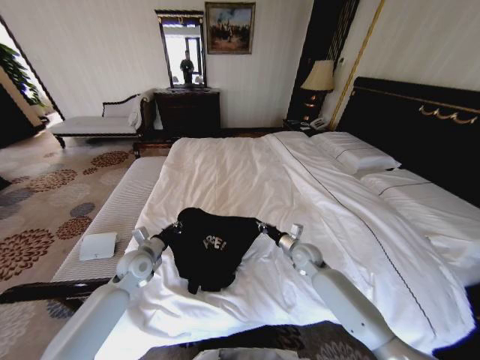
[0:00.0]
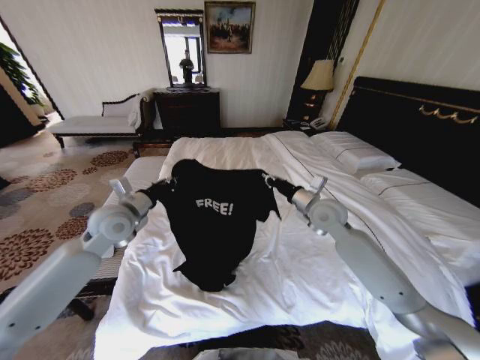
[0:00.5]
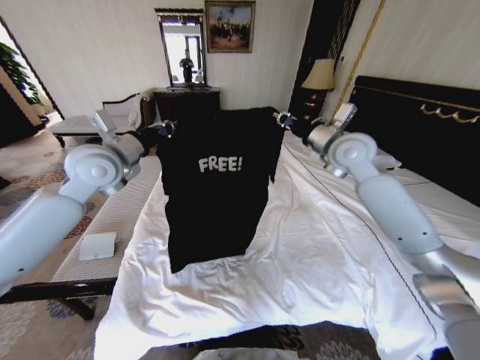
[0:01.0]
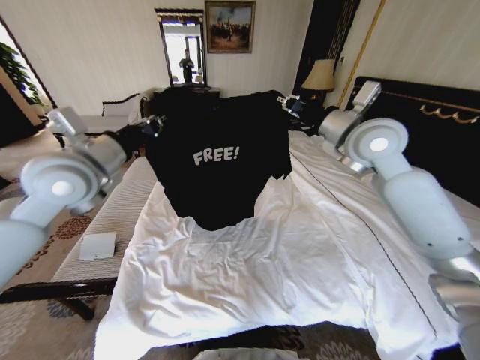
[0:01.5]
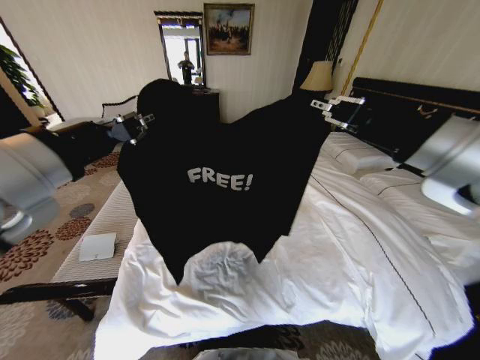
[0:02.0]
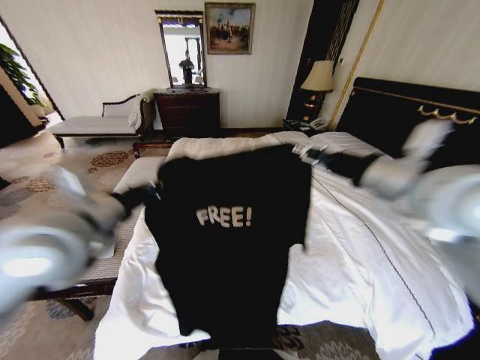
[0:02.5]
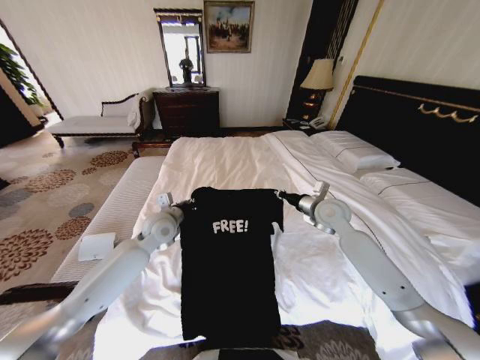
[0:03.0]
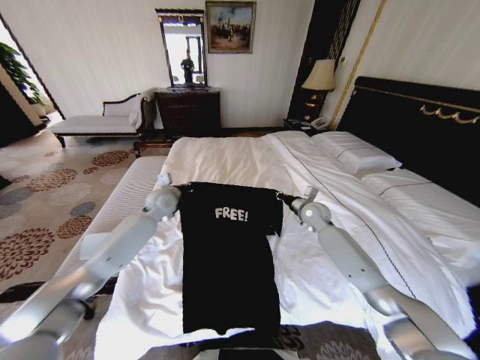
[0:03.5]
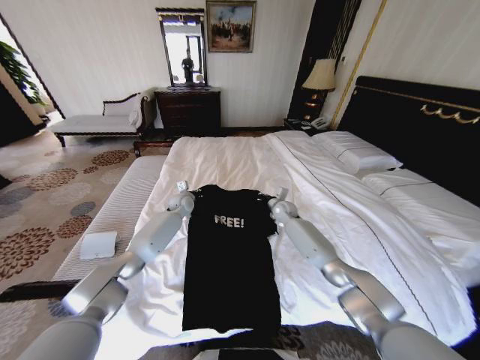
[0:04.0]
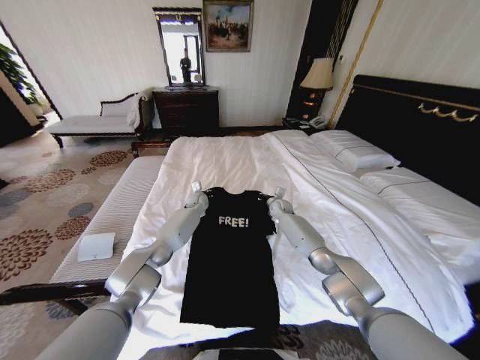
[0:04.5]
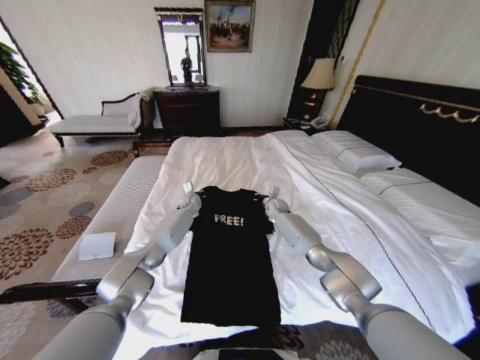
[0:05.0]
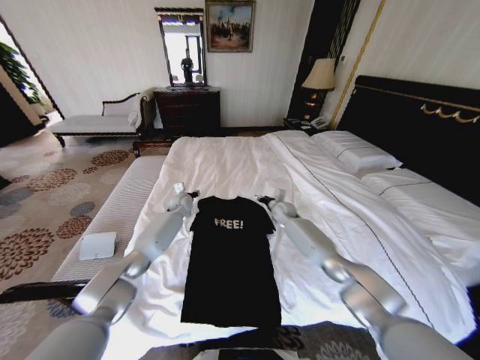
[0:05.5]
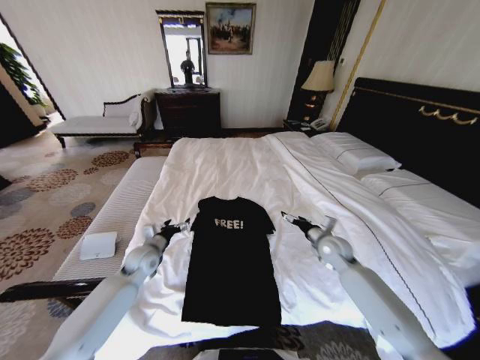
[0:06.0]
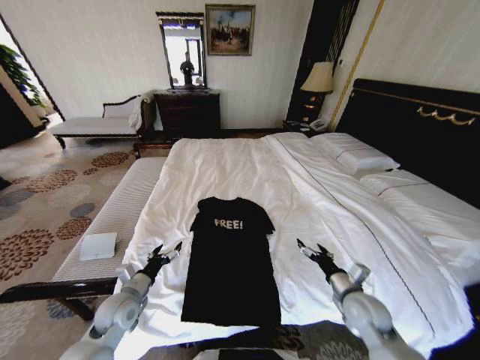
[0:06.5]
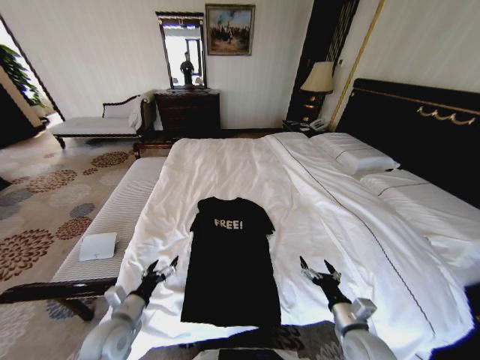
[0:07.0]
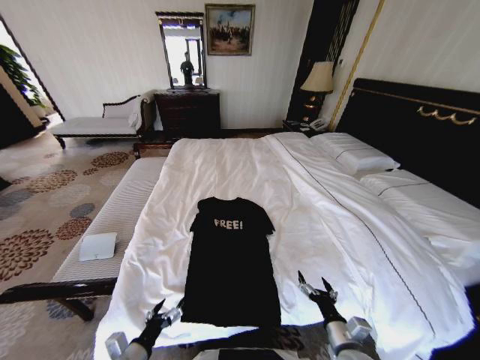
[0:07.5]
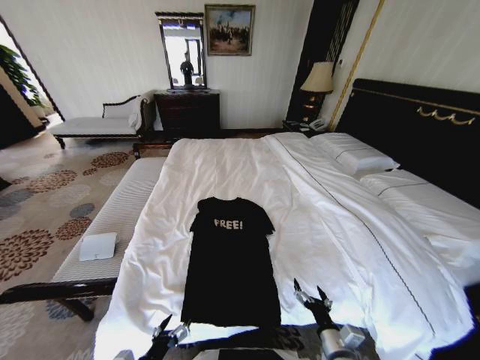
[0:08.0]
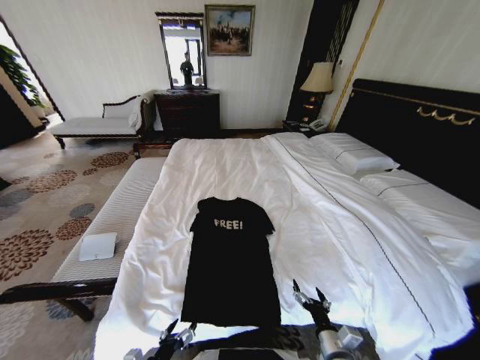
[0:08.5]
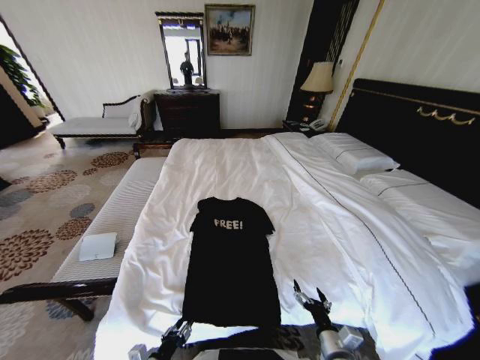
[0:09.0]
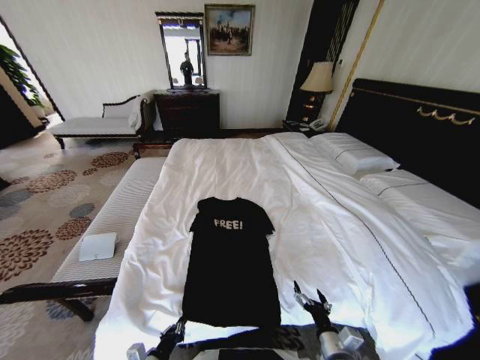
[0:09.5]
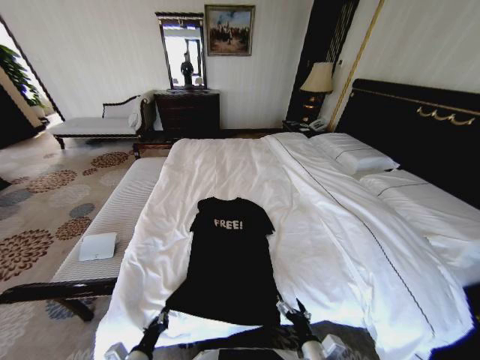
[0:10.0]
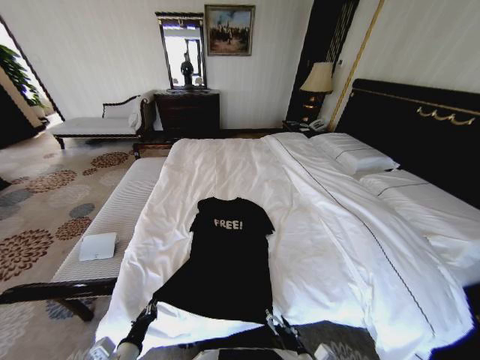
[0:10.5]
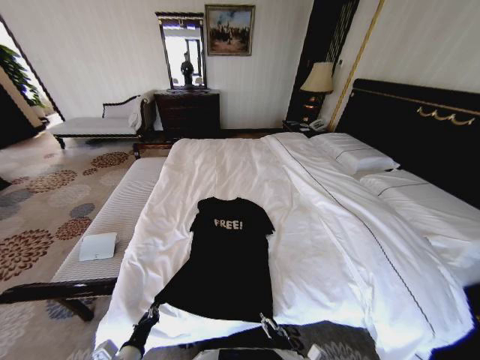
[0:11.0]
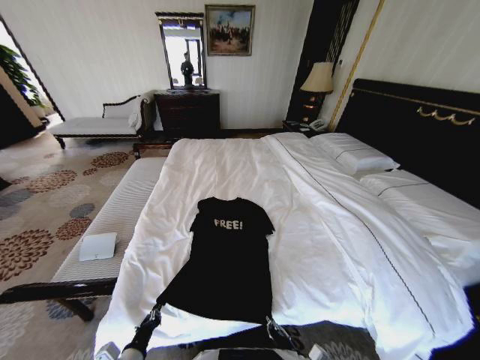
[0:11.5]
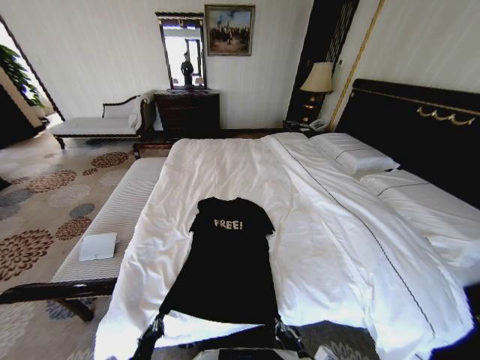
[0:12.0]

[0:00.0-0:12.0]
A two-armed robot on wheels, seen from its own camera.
Task of the whole recording: Fold the clothes on the bed.
0:00.0 to 0:02.0: The two grippers go roughly 40 cm upward.
0:02.0 to 0:04.0: The right gripper heads downward and forward, covering some 50 cm. Meanwhile the left gripper heads forward and downward, covering about 50 cm.
0:04.0 to 0:06.0: The left gripper shifts some 25 cm backward and to the left, and opens, while the right gripper goes some 20 cm backward and to the right, and opens up.
0:06.0 to 0:08.0: The two grippers go approximately 30 cm backward.
0:08.0 to 0:10.0: The right gripper changes place by approximately 5 cm, while the left gripper closes.
0:10.0 to 0:12.0: The right gripper closes its fingers.

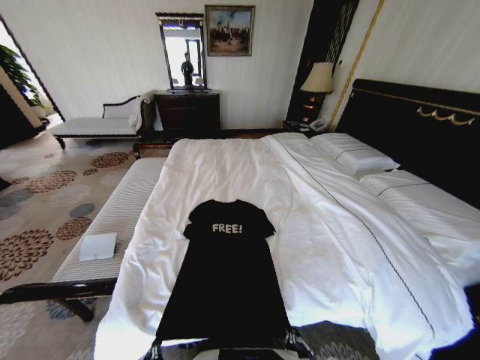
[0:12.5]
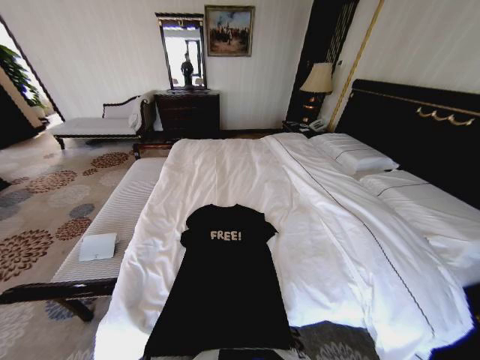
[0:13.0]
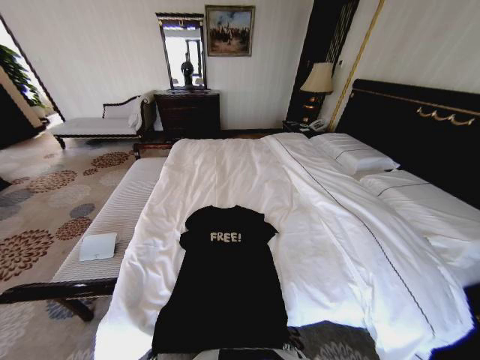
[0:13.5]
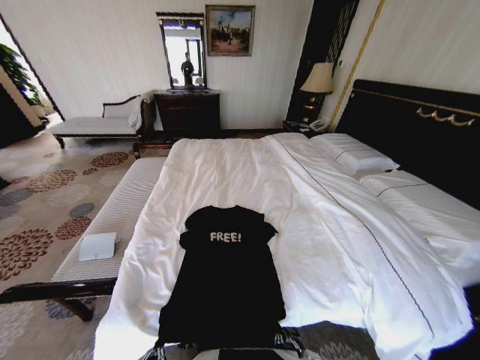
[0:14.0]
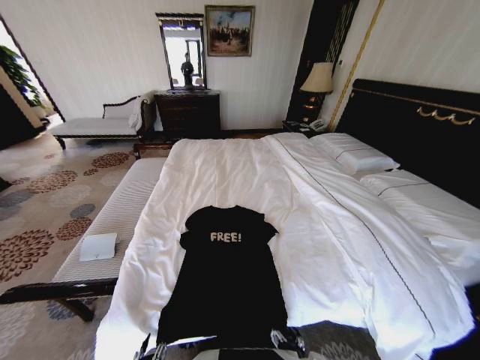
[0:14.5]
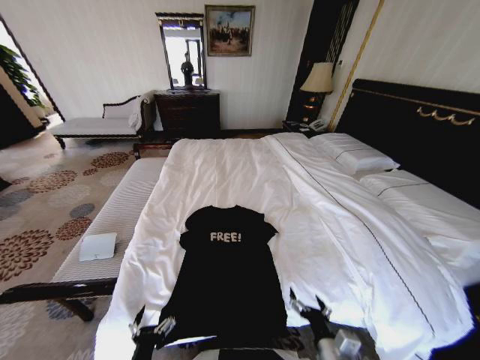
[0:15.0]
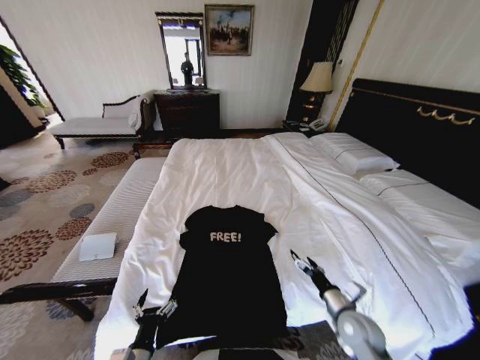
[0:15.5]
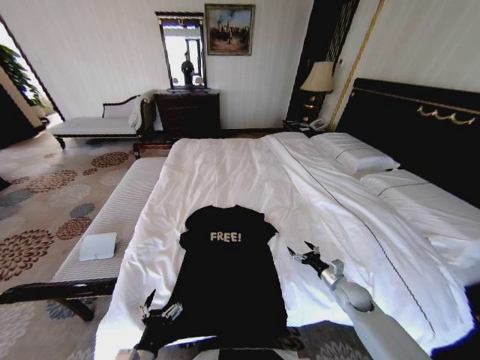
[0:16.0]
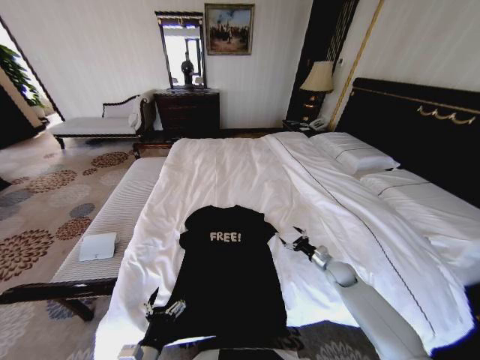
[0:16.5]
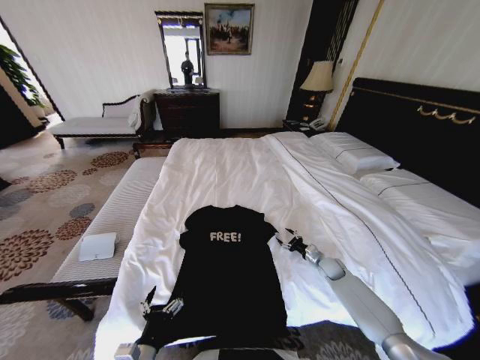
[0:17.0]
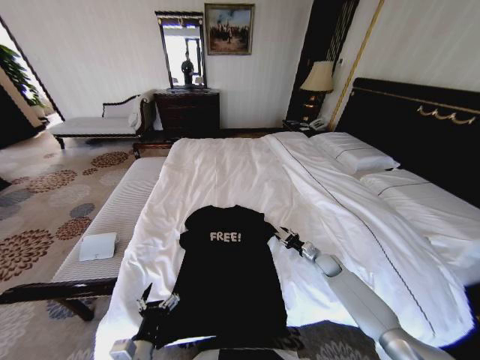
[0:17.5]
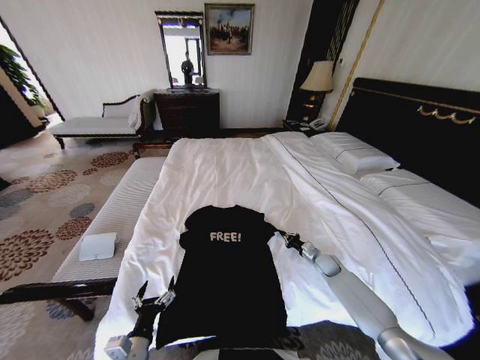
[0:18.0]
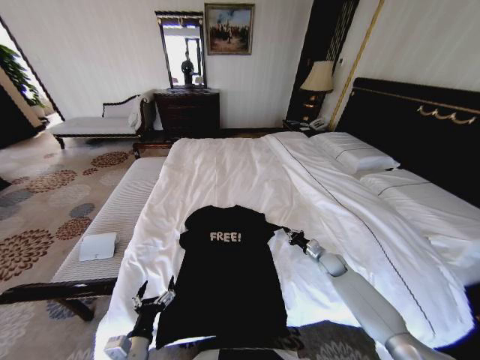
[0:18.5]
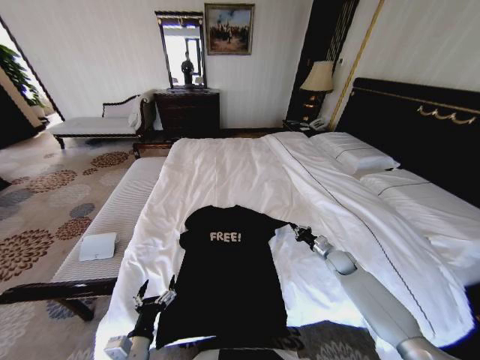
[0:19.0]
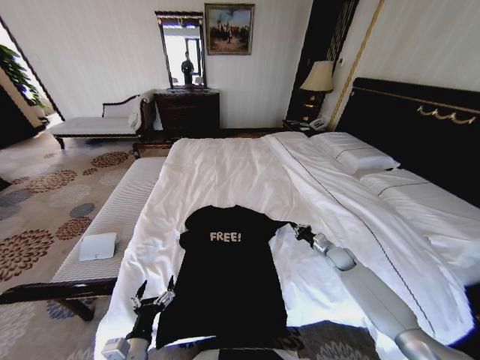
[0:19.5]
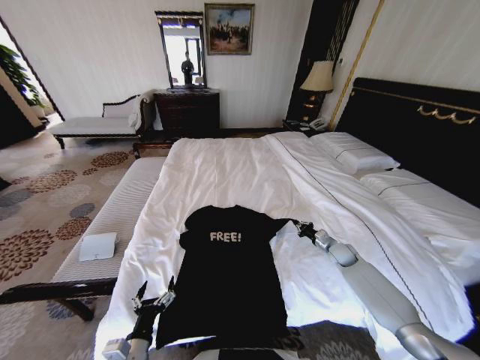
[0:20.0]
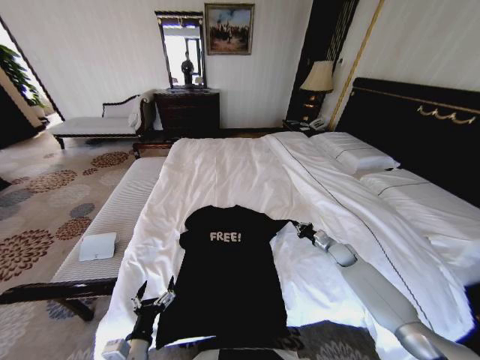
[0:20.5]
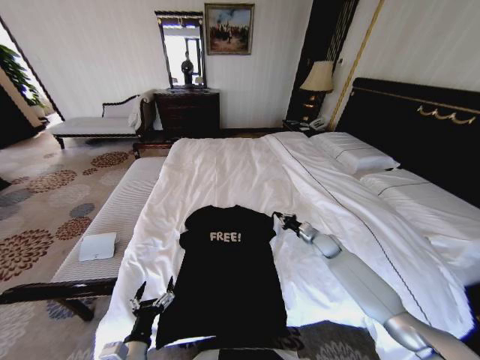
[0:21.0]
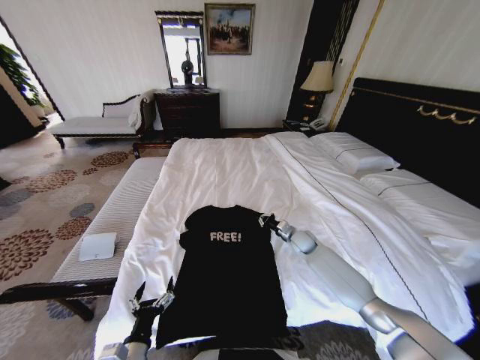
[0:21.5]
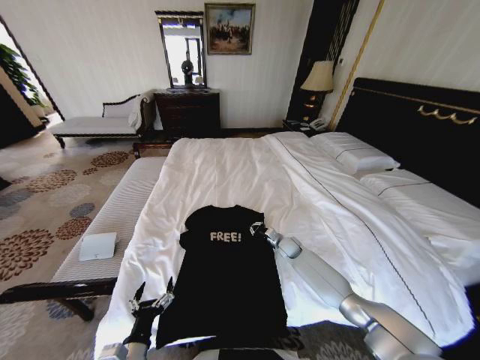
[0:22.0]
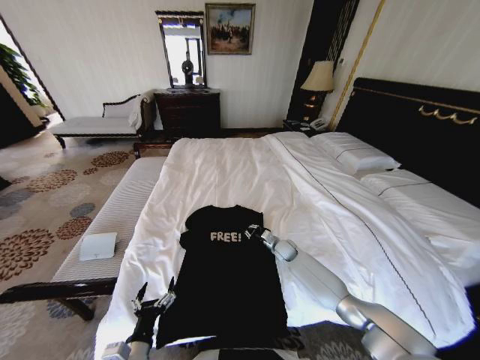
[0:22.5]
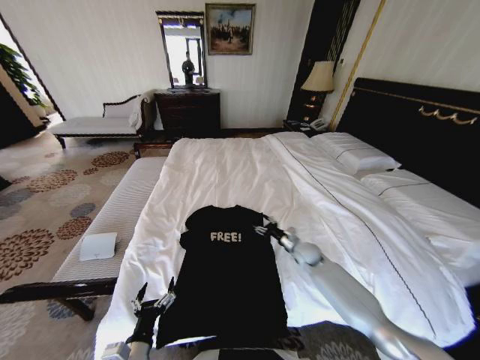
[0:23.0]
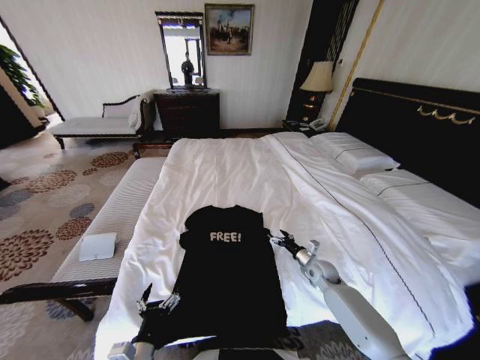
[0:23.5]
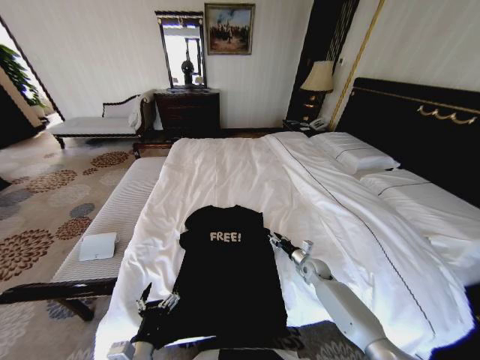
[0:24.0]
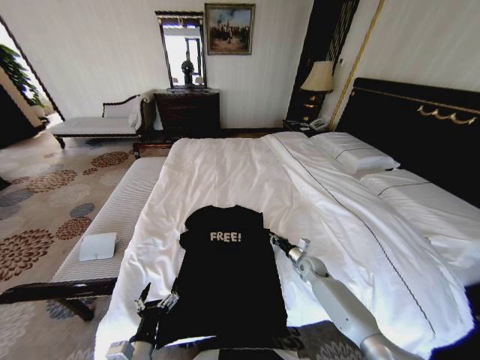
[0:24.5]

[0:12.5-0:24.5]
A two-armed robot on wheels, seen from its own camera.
Task of the whole recording: Fold the clothes on the bed.
0:12.5 to 0:14.5: The left gripper opens its fingers; the right gripper opens up.
0:14.5 to 0:16.5: The left gripper heads forward, covering some 10 cm, and opens; the right gripper travels forward and to the right by about 40 cm.
0:16.5 to 0:18.5: The right gripper closes.
0:18.5 to 0:20.5: The right gripper ends up roughly 5 cm from where it was.
0:20.5 to 0:22.5: The right gripper shifts some 20 cm to the left.
0:22.5 to 0:24.5: The right gripper moves to the right and backward, about 10 cm, and opens and closes again.

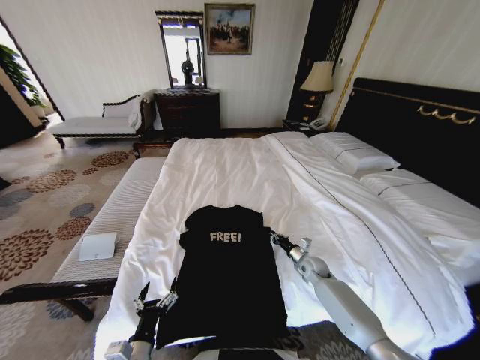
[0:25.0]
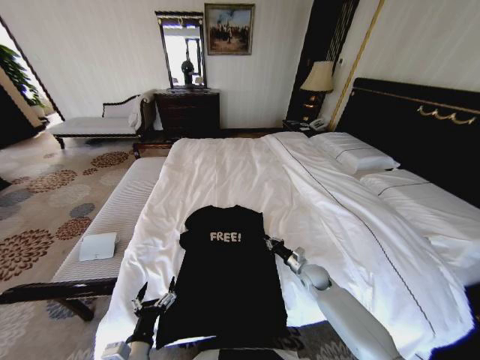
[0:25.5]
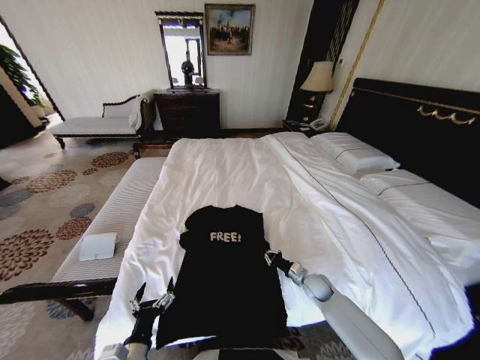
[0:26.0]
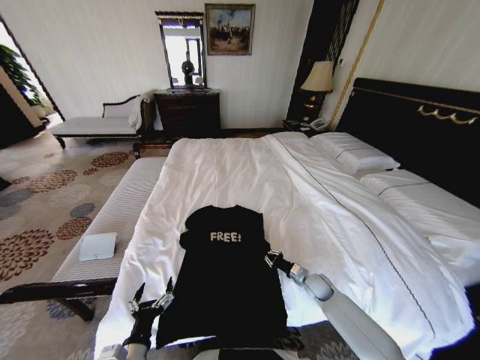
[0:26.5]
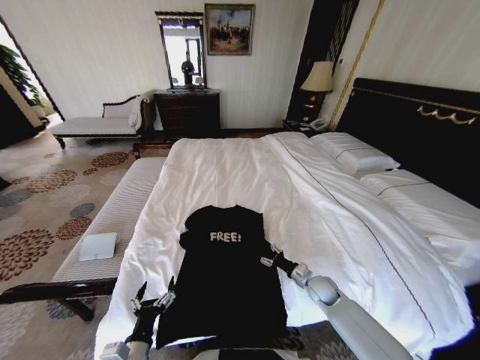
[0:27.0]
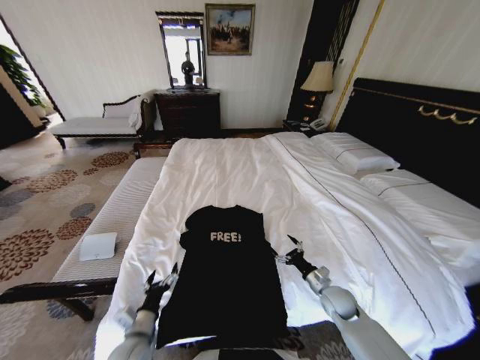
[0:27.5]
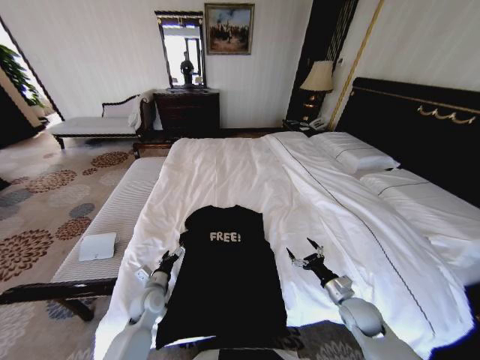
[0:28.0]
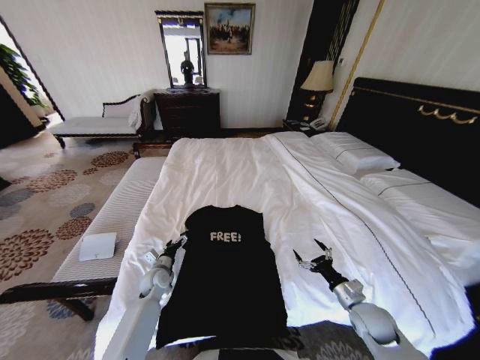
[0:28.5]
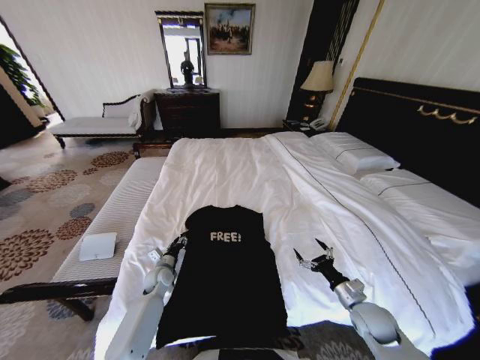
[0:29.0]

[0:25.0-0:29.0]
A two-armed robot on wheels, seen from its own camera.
Task of the whole recording: Fold the clothes on the bed.
0:25.0 to 0:27.0: The right gripper goes about 10 cm backward, and opens.
0:27.0 to 0:29.0: The left gripper shifts roughly 30 cm forward, and closes up; the right gripper goes roughly 15 cm backward, to the right and upward, and opens its fingers.
